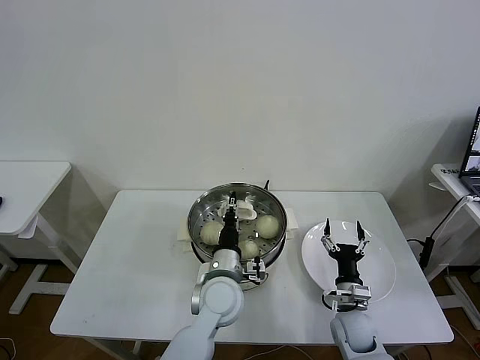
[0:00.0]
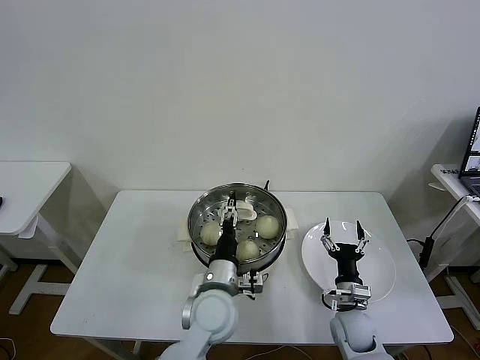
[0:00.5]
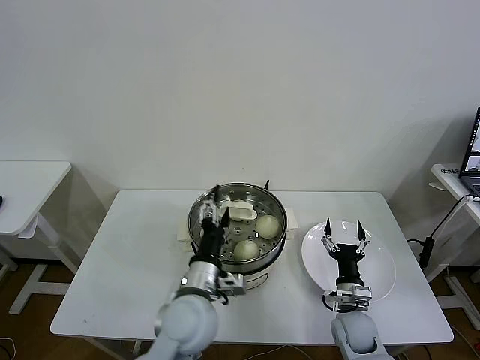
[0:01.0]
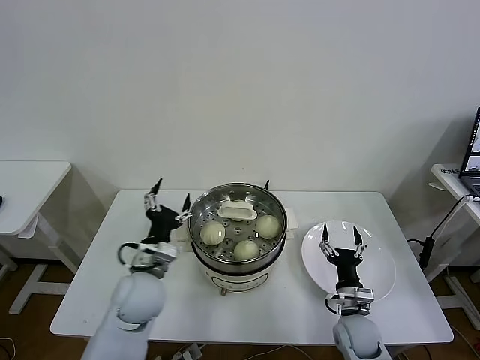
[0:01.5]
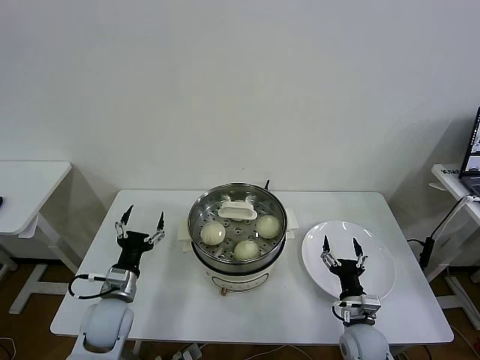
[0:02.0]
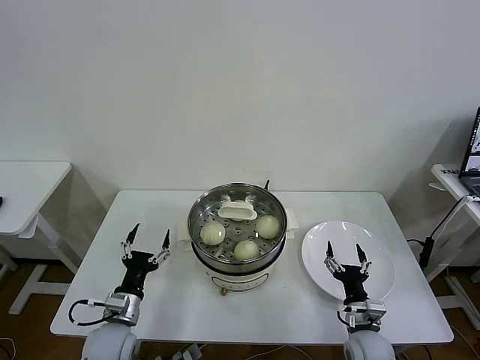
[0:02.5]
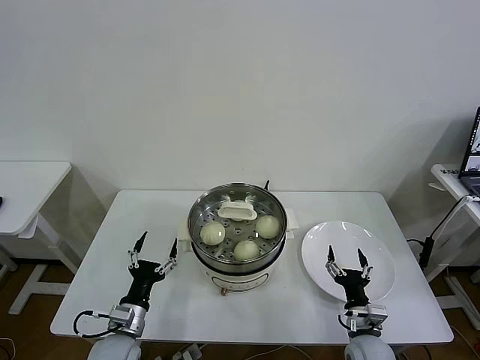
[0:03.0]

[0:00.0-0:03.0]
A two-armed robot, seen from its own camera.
Task of the whole recording: take steamed baozi put them in steamer then cover it.
0:00.0 to 0:01.5: The left gripper travels to the left by about 15 cm, and opens up.
0:01.5 to 0:03.0: The left gripper is displaced downward, to the left and backward by approximately 15 cm; the right gripper moves some 5 cm.
